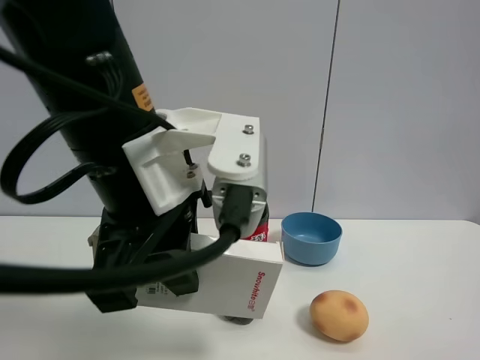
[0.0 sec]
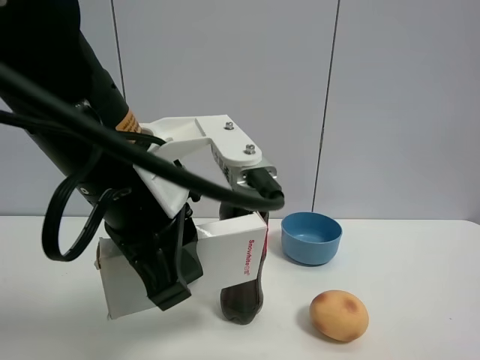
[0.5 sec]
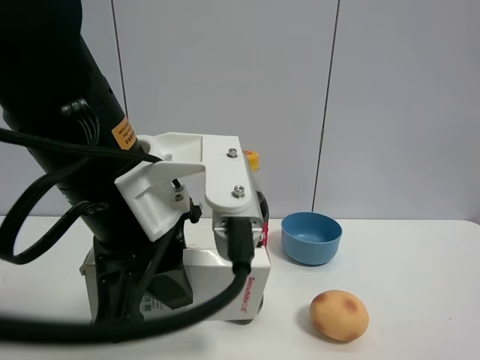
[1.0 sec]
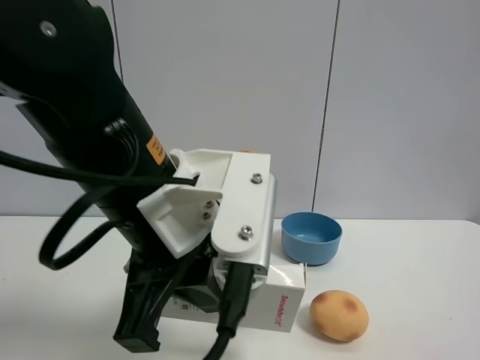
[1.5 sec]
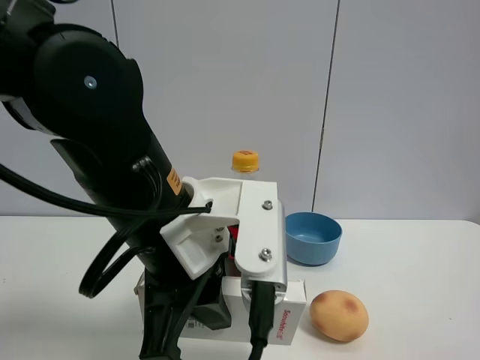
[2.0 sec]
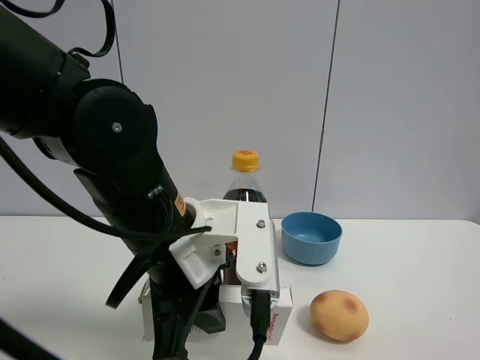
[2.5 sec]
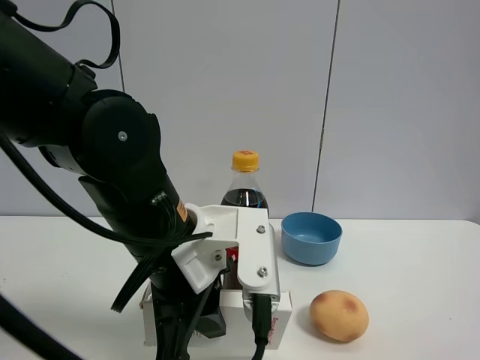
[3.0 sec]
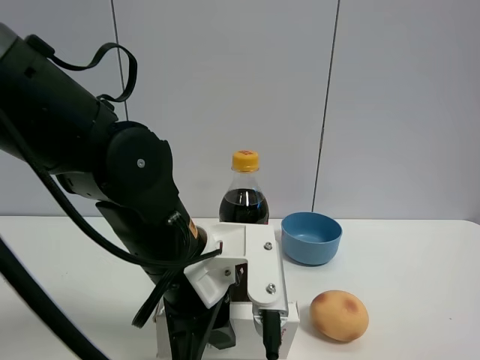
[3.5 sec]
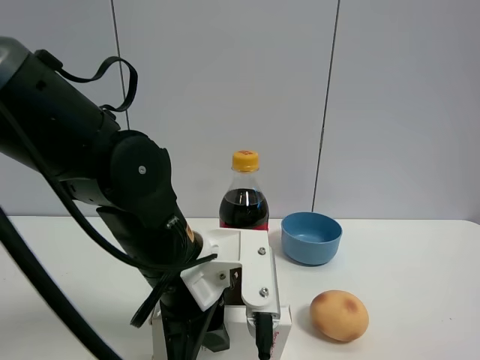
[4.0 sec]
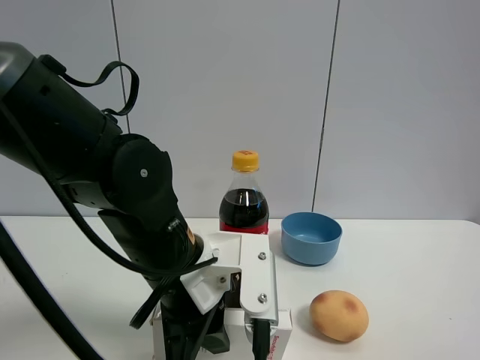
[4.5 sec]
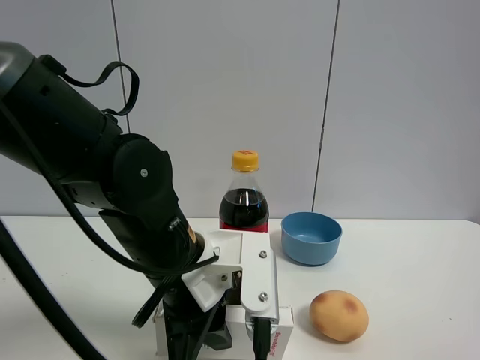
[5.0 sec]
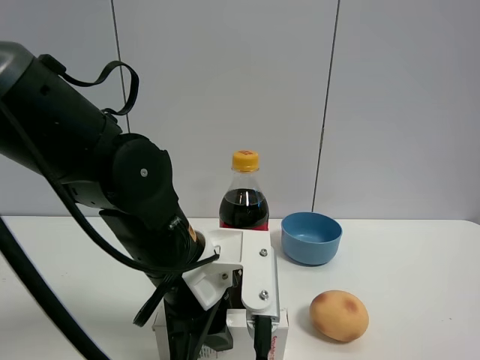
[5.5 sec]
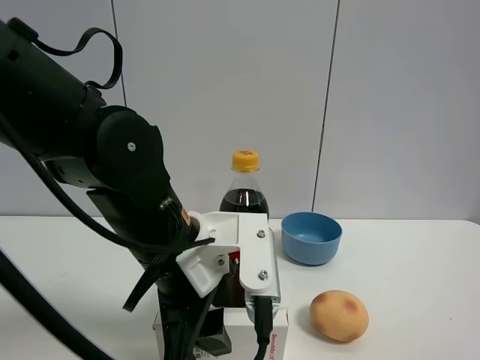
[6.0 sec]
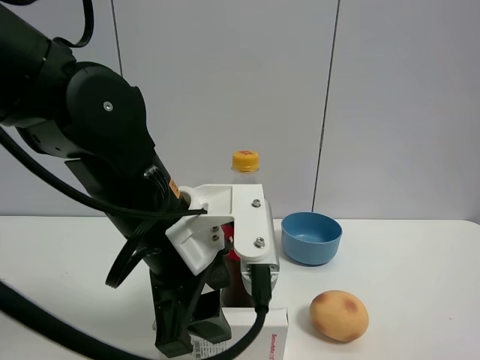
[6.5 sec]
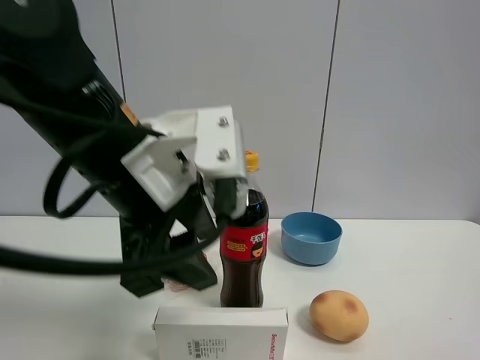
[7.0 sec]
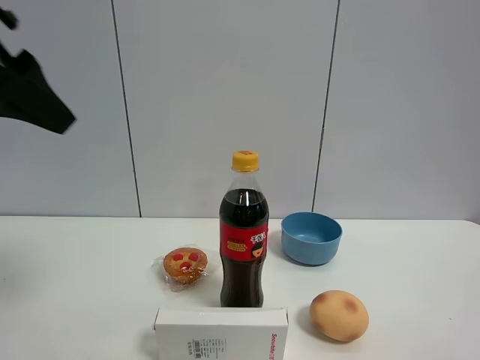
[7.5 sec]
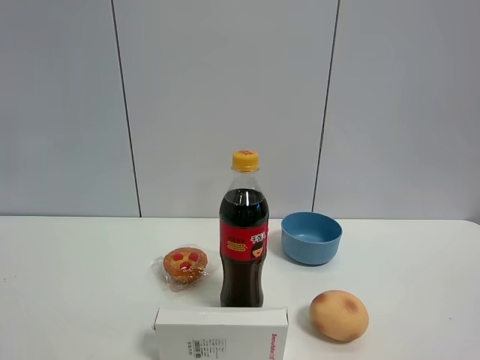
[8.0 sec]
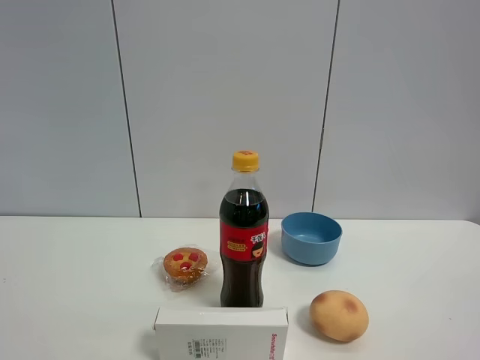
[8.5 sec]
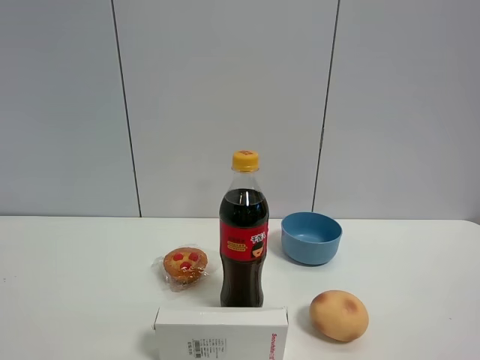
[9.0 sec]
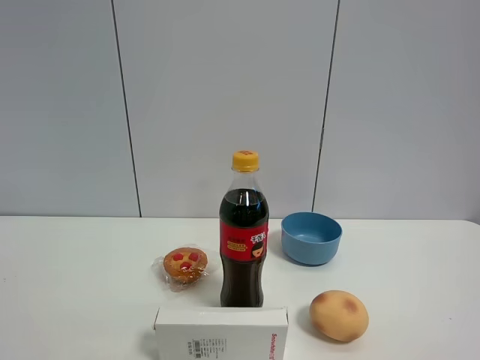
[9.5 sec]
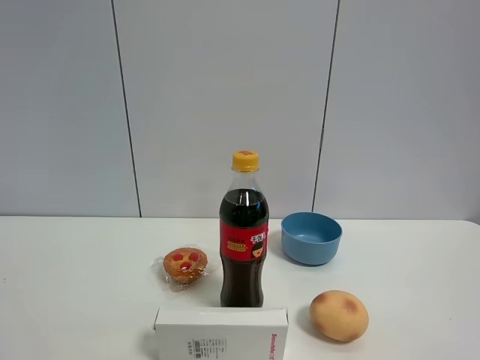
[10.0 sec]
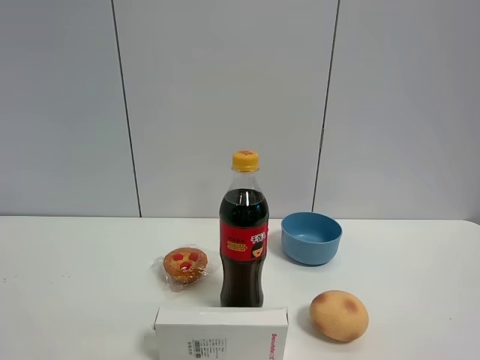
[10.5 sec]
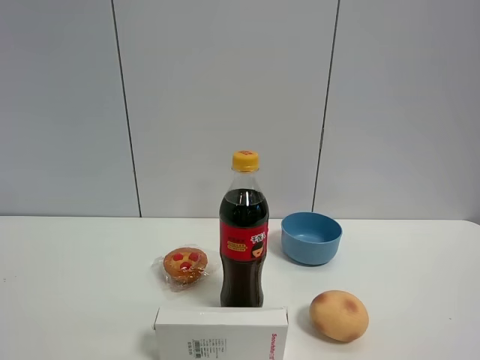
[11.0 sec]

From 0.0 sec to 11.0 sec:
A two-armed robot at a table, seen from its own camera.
Task of the whole recording: the gripper move the object.
Step, from 0.0 sec to 5.5 sec: Place the USB boxon the table with the left gripper.
From 0.0 sec to 2.0 sec: The left gripper shifts approximately 5 cm downward.
From 2.0 sec to 3.5 sec: The left gripper goes about 5 cm downward.
From 3.5 sec to 5.5 sec: Neither gripper changes place.
From 5.5 sec to 7.5 sec: The left gripper goes about 30 cm upward and to the left, and opens up.
From 7.5 sec to 9.0 sec: The left gripper heads backward, covering approximately 25 cm.

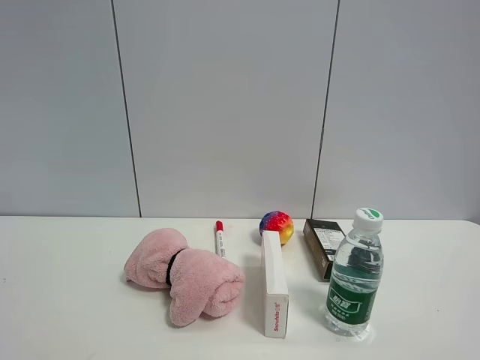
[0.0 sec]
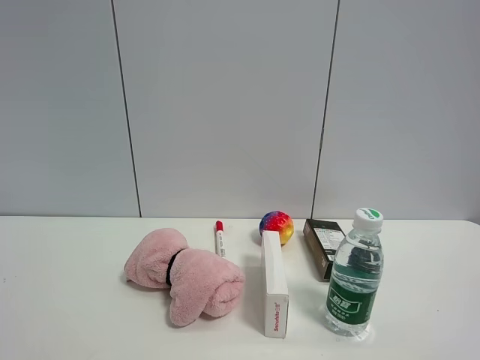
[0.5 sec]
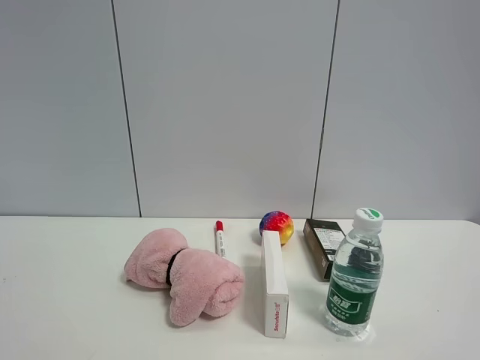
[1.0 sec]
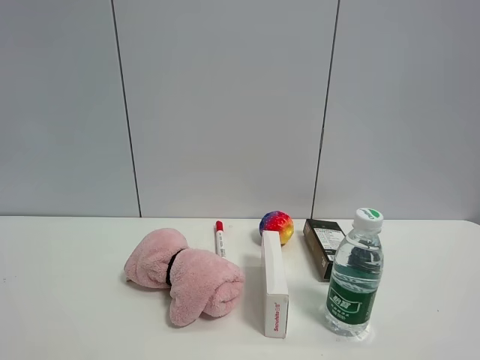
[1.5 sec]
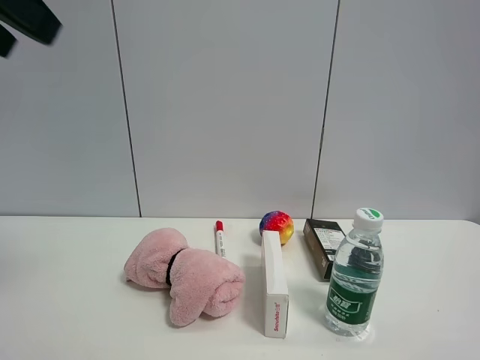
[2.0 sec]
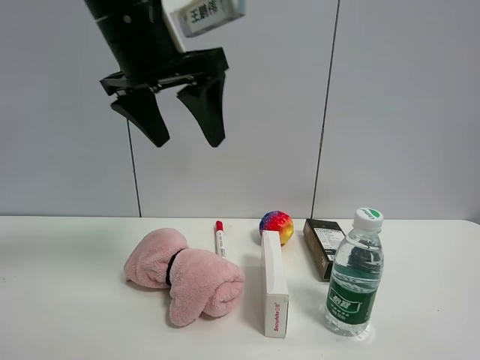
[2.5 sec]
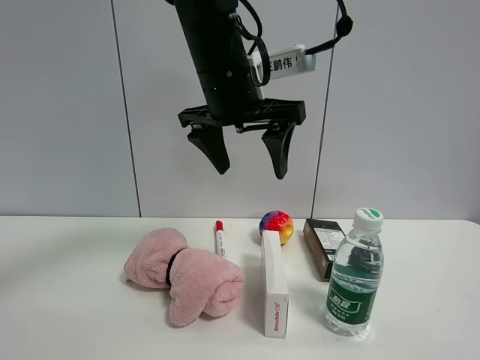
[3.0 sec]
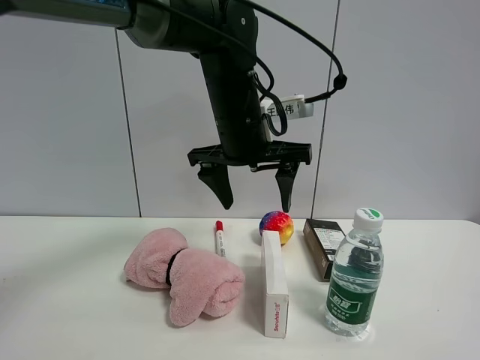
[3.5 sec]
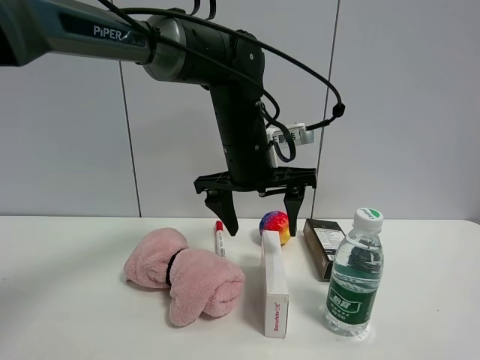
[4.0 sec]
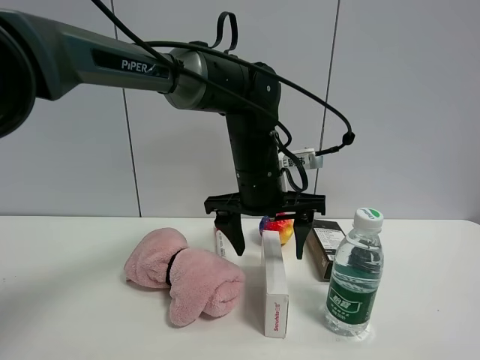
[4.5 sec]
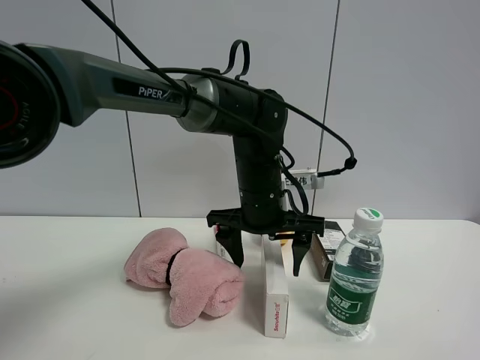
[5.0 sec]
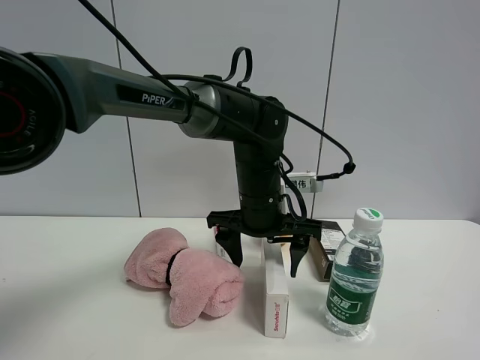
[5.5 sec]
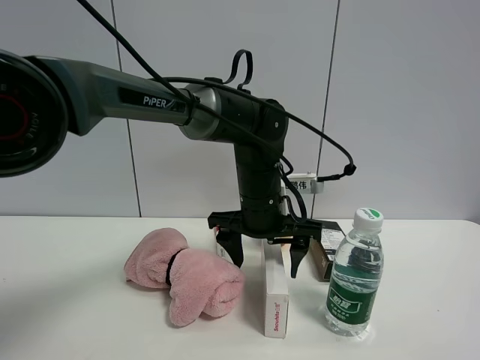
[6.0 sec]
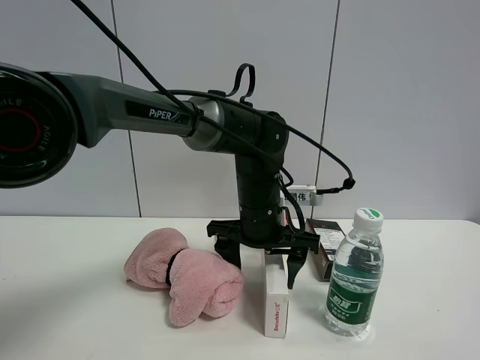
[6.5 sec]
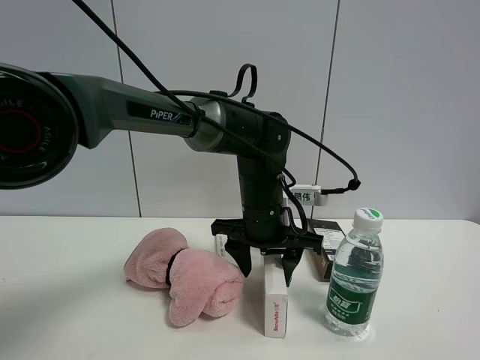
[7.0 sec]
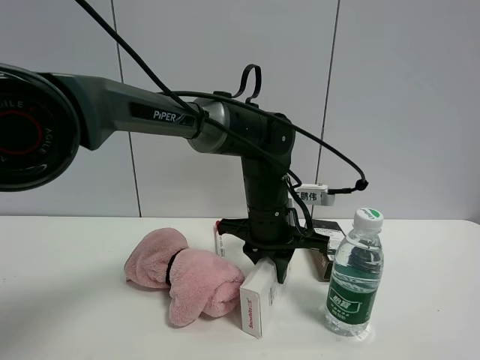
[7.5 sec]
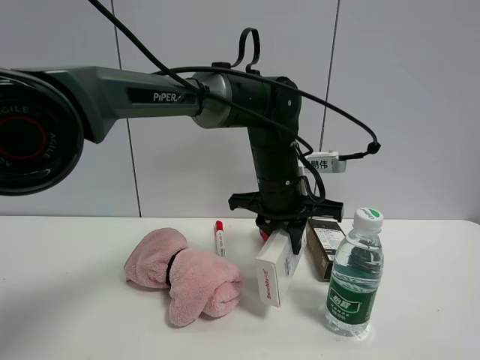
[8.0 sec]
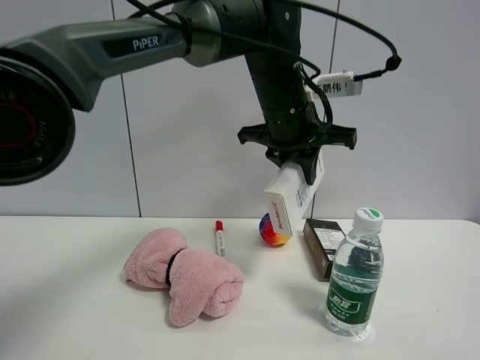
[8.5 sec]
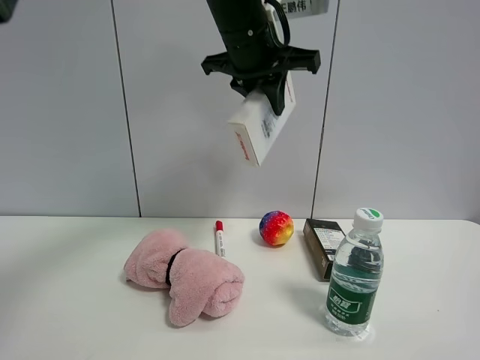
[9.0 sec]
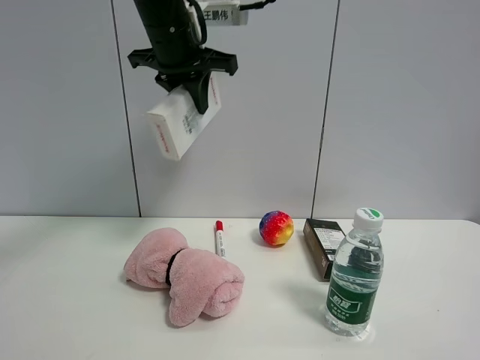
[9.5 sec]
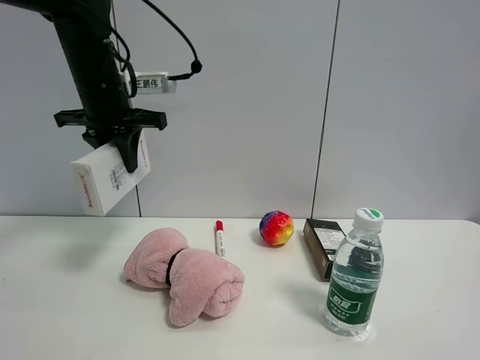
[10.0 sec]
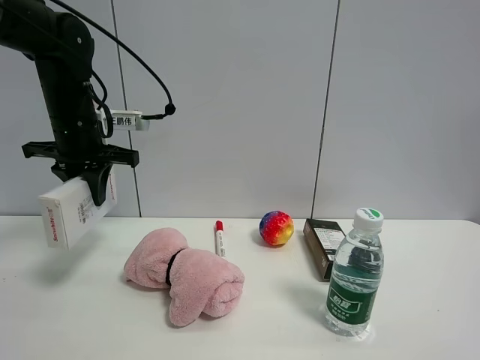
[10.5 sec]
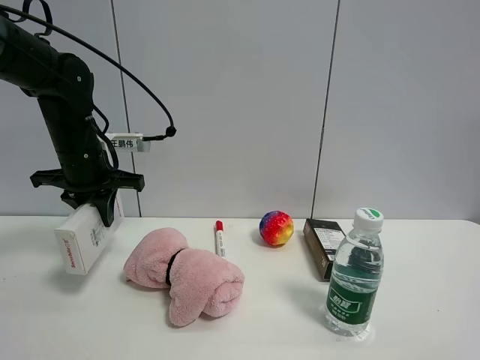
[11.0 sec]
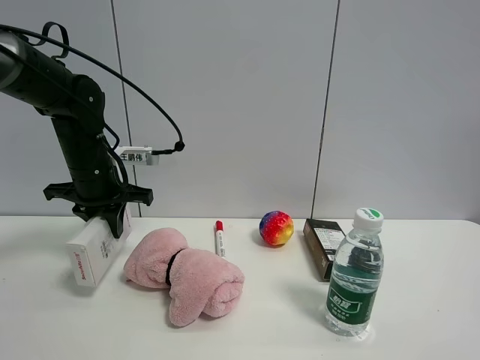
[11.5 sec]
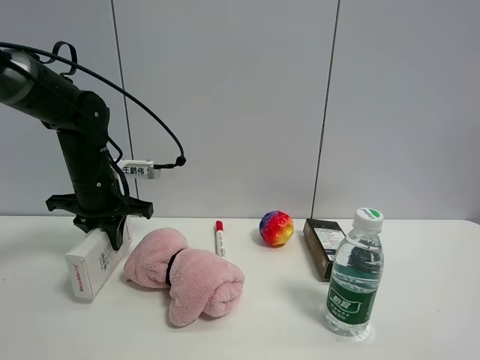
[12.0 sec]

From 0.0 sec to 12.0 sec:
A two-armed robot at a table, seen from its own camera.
Task of the whole recording: the gripper move the object.
Step, from 0.0 sec to 7.0 sec: Grasp the USB box with the left gripper.
From 0.0 sec to 2.0 sec: The left gripper moves forward and upward, approximately 25 cm.
From 2.0 sec to 4.0 sec: The left gripper moves to the right, downward and forward, approximately 35 cm.
From 4.0 sec to 6.0 sec: The left gripper travels downward by some 5 cm.
From 6.0 sec to 8.0 sec: The left gripper closes its fingers.
From 8.0 sec to 10.0 sec: The left gripper travels to the left and upward by roughly 25 cm.
From 10.0 sec to 12.0 sec: The left gripper travels downward by approximately 15 cm.

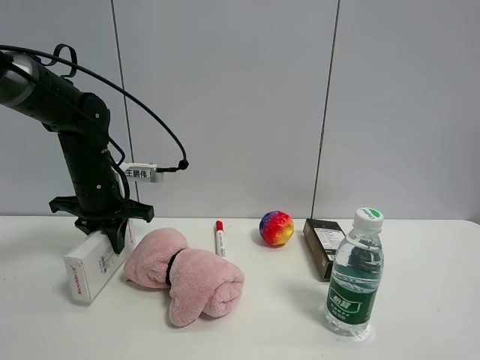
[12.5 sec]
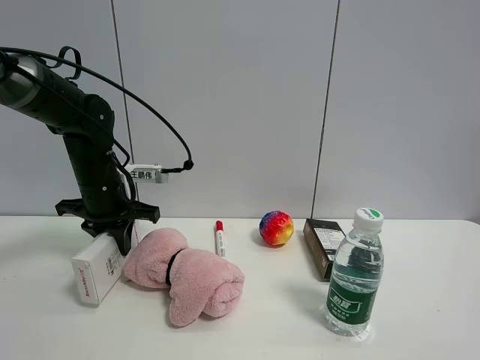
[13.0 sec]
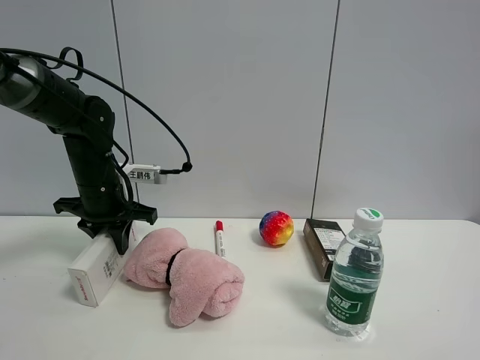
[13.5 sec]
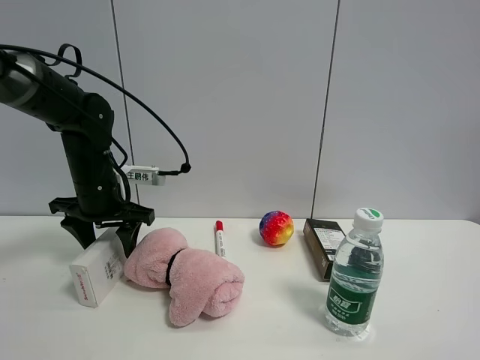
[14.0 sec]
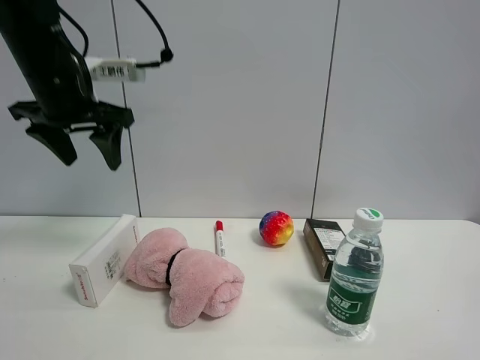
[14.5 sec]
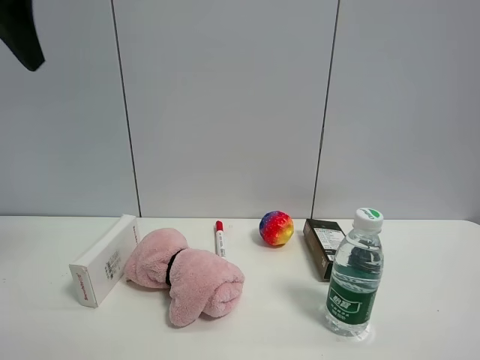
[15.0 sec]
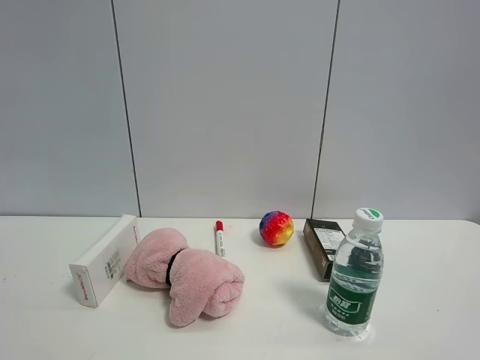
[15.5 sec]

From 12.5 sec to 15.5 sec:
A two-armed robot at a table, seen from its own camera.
Task of the whole recording: the gripper move the object.
From 12.5 sec to 14.0 sec: The left gripper opens up.
From 14.0 sec to 15.5 sec: The left gripper shifts about 40 cm backward and upward.
